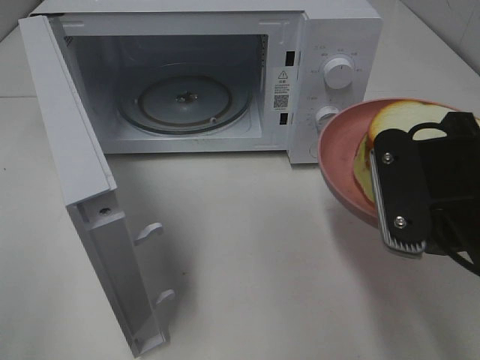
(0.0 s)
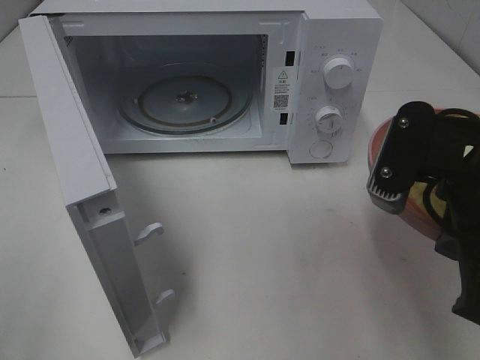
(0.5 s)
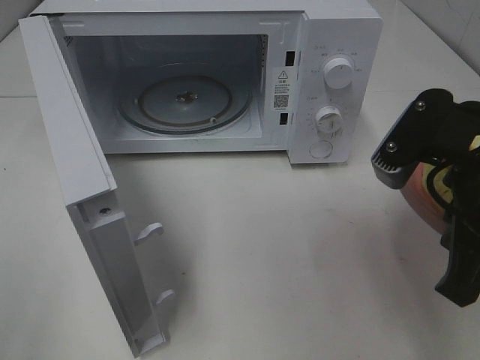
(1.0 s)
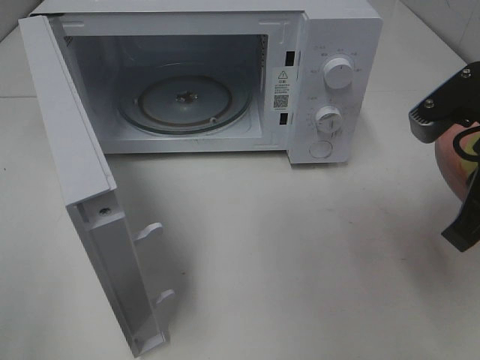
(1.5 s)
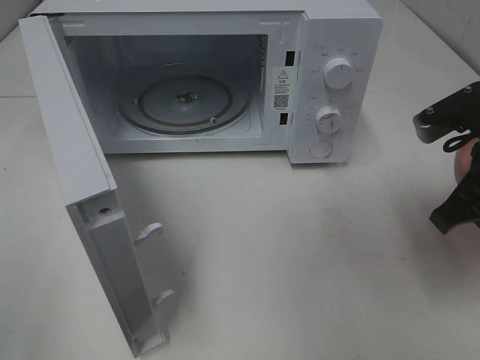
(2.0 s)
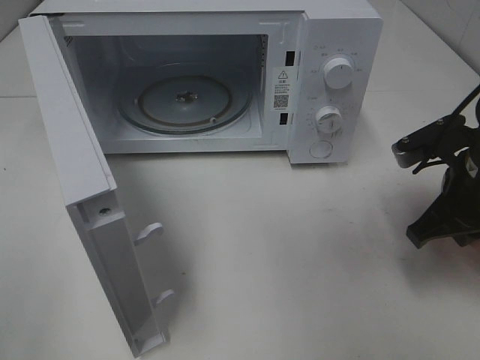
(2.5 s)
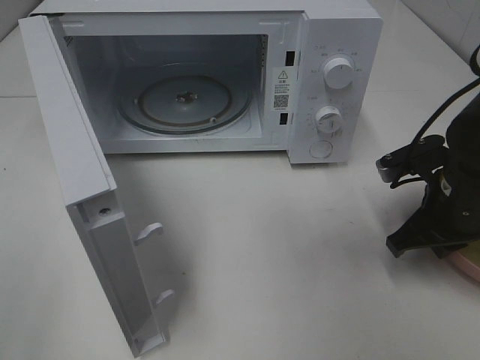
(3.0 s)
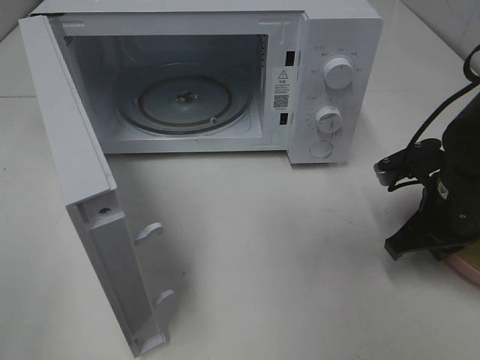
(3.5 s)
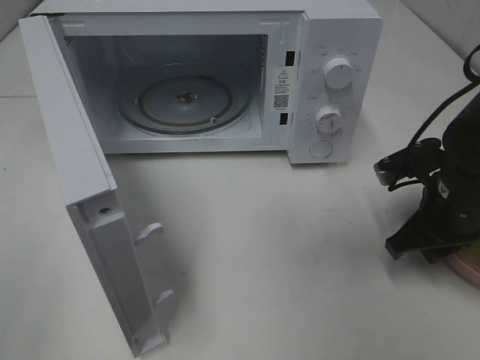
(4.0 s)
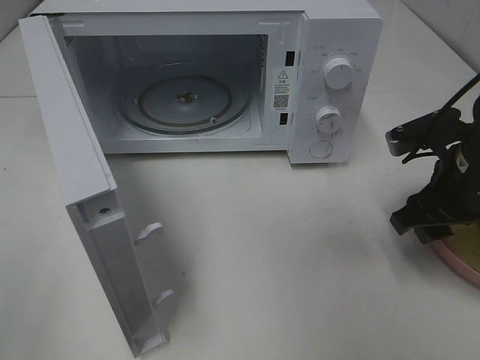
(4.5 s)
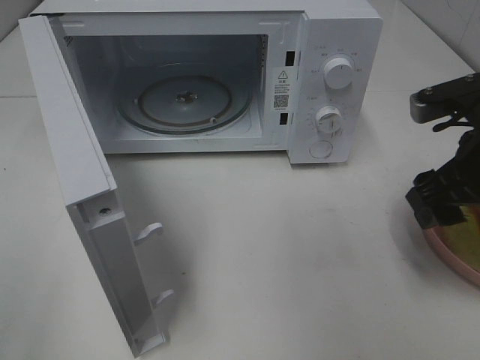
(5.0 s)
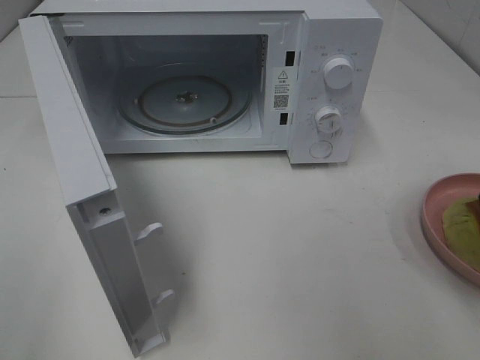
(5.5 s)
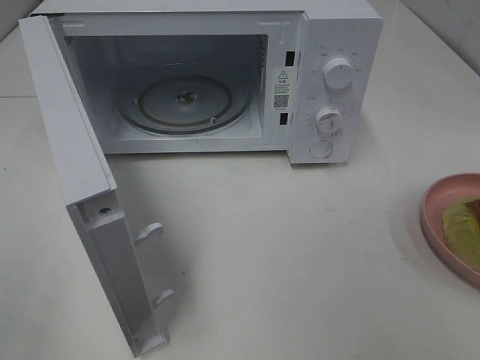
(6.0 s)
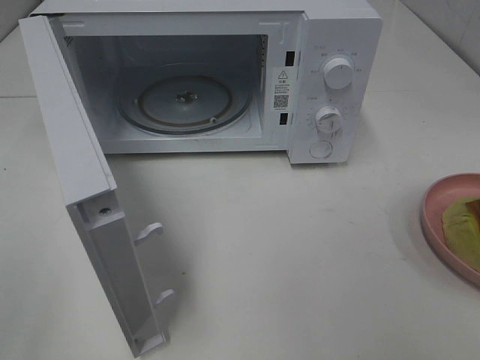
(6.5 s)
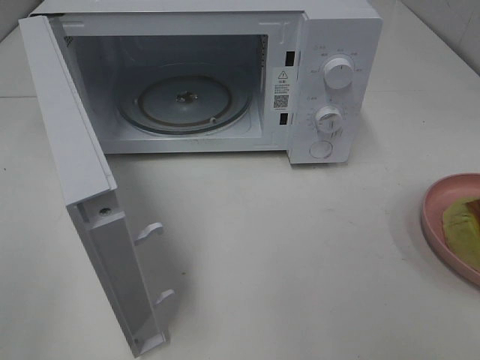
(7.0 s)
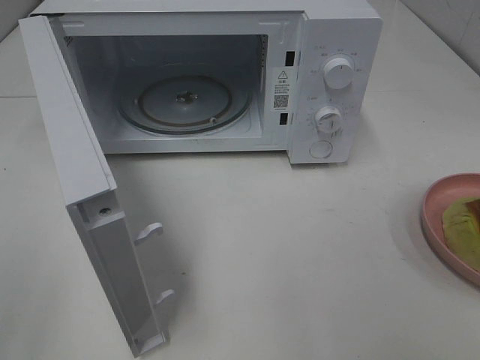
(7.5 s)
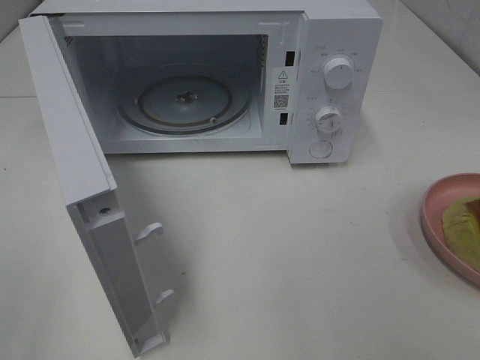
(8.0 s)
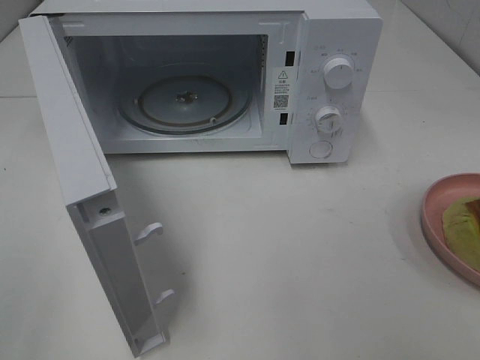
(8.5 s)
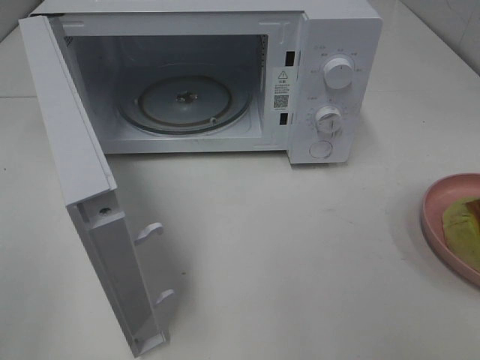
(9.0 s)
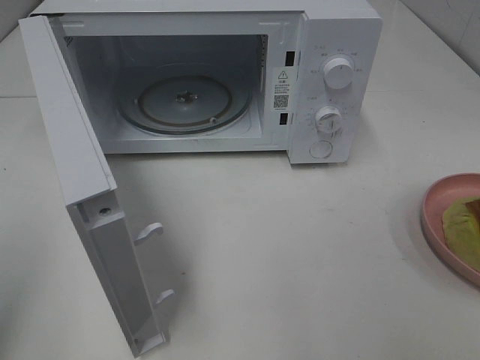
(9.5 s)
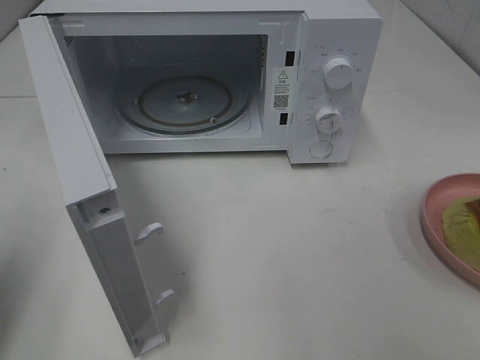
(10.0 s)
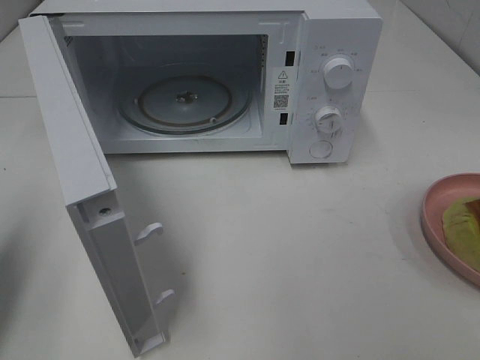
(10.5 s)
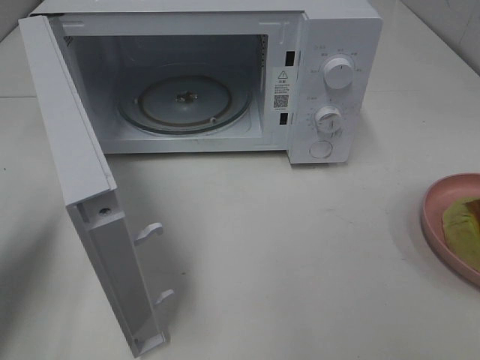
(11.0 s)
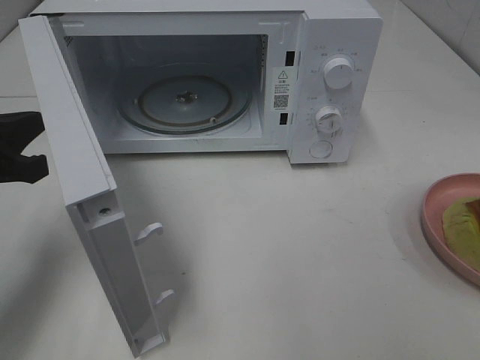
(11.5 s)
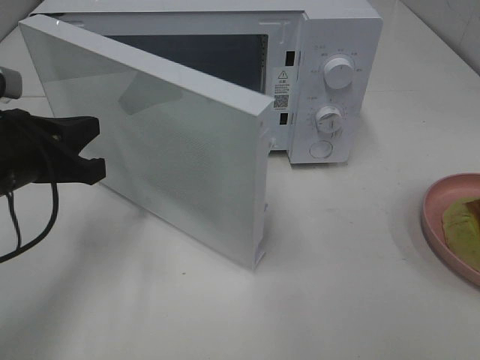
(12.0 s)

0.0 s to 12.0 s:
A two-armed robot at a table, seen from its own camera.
Task of the whole recording: Heat Sandwich.
Step, 0.0 to 4.5 s: Right hand: place the plate on the table.
0.0 to 2.0 s: The right gripper goes roughly 10 cm forward and to the right.
2.0 to 4.0 s: The right gripper is displaced downward by some 10 cm, and opens up.
4.0 to 6.0 s: The right gripper travels upward and backward by roughly 25 cm, and opens its fingers.
8.0 to 10.0 s: The left gripper heads forward, covering about 15 cm, and closes up.
10.0 to 12.0 s: The left gripper goes approximately 20 cm forward, to the right and downward.

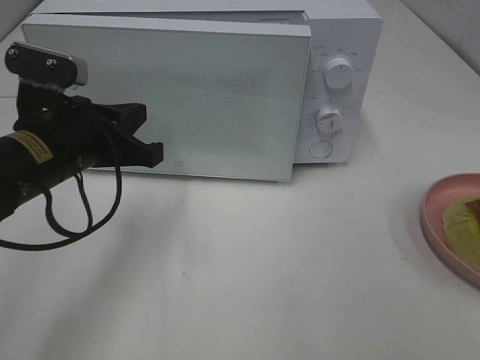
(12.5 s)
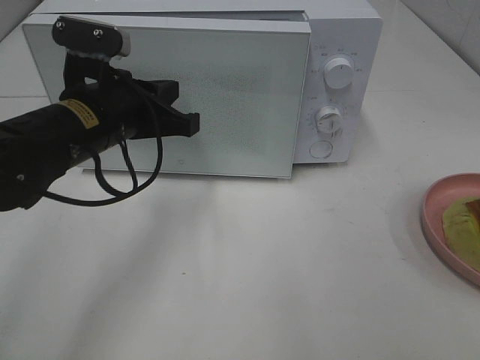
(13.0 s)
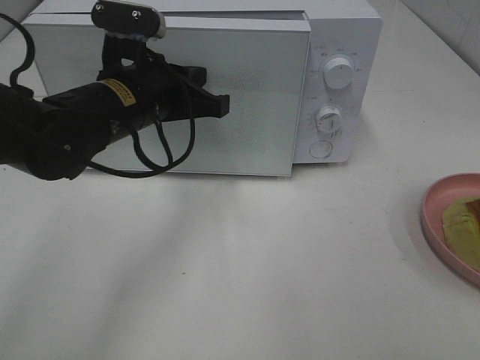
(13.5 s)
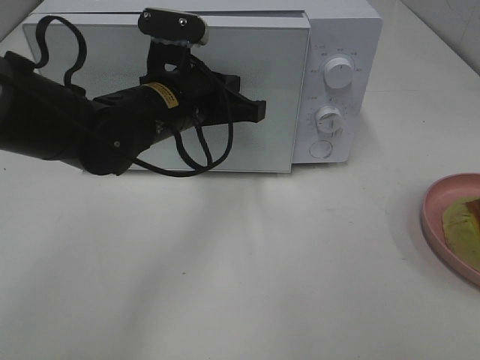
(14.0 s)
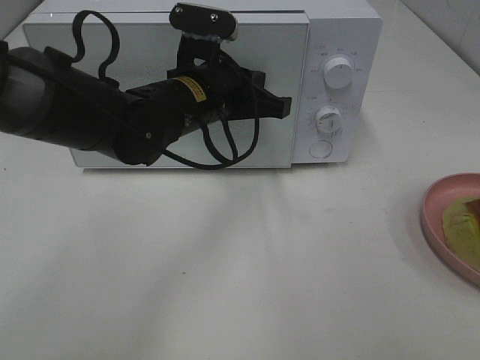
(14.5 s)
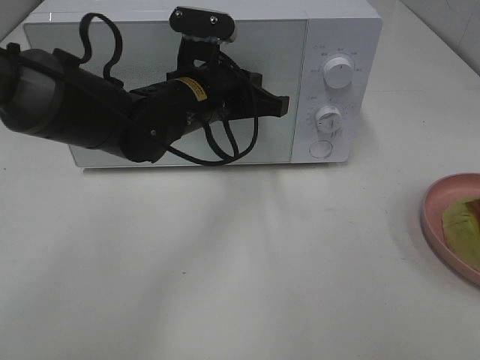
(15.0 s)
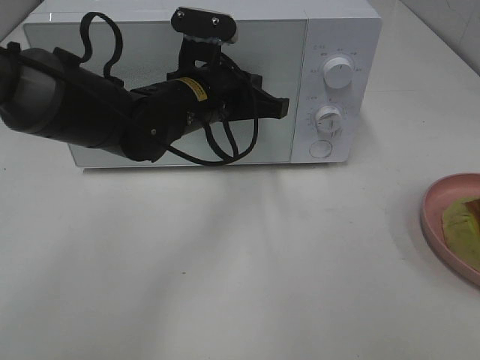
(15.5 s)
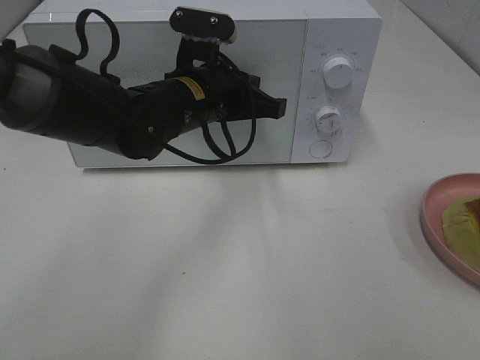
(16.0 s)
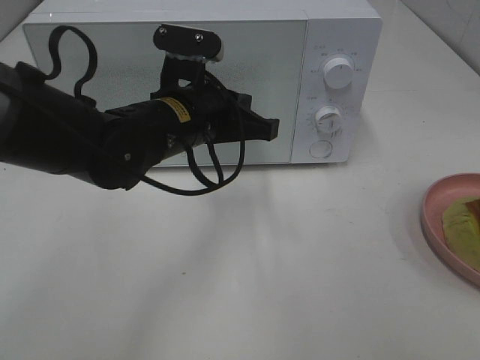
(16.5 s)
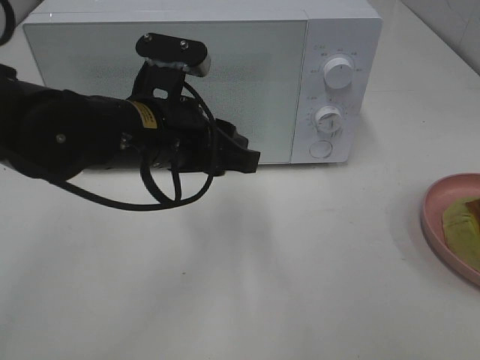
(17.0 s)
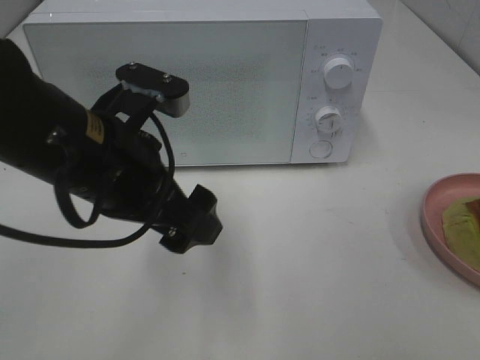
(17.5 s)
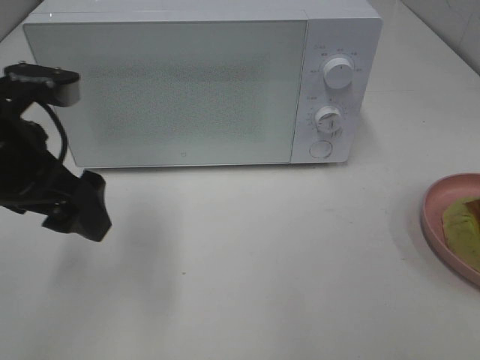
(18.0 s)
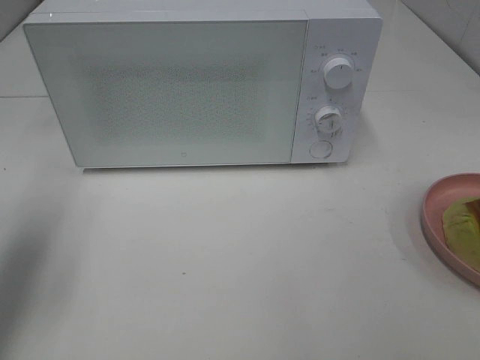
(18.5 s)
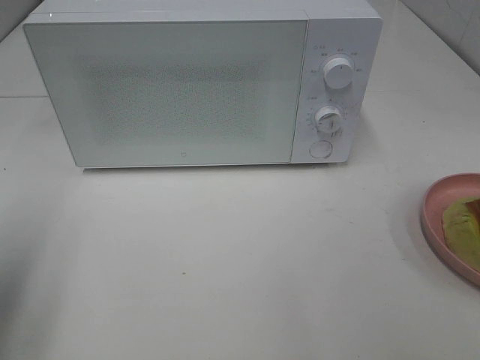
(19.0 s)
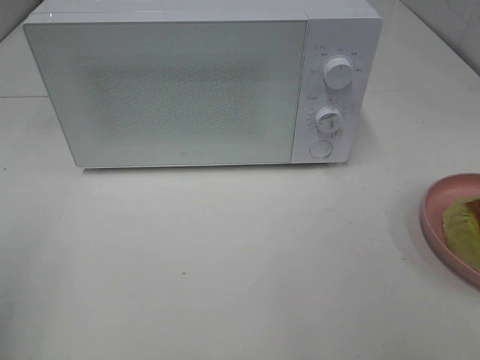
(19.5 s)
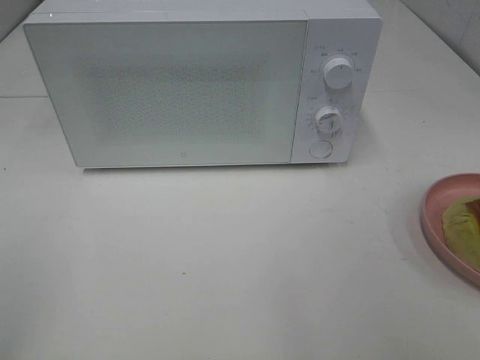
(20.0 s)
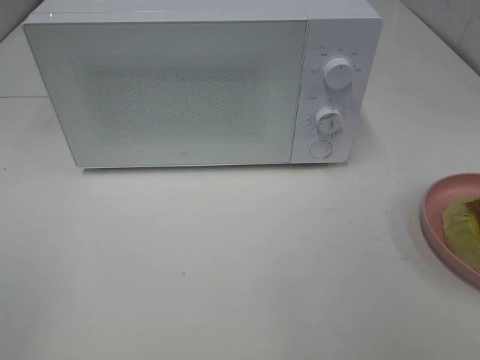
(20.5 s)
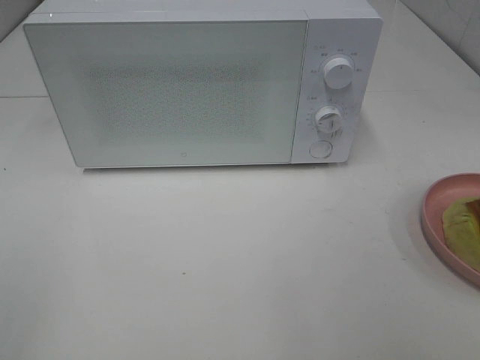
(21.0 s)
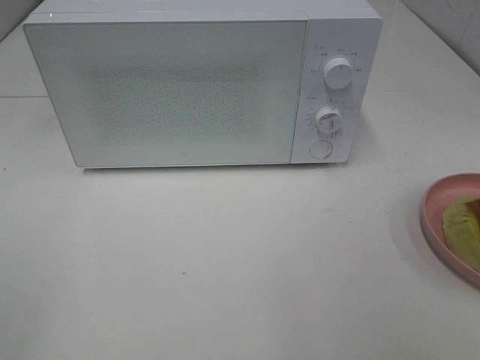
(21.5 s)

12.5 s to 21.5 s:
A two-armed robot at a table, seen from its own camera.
Task of the whole recording: Heat Sandwich.
Step, 12.5 to 16.5 s: Left hand: close the microwave door.
12.5 to 14.5 s: The left gripper is displaced to the right and forward by roughly 15 cm.
14.5 to 17.0 s: The left gripper moves backward, about 10 cm, and opens up.
17.0 to 19.5 s: The left gripper goes approximately 30 cm to the left and backward, and opens.

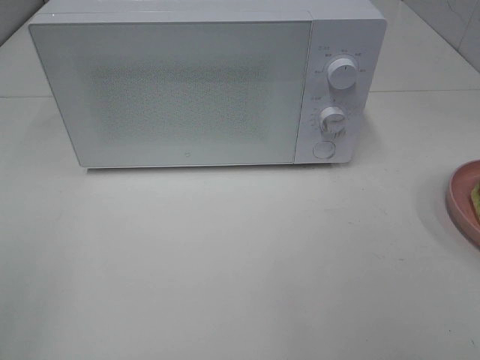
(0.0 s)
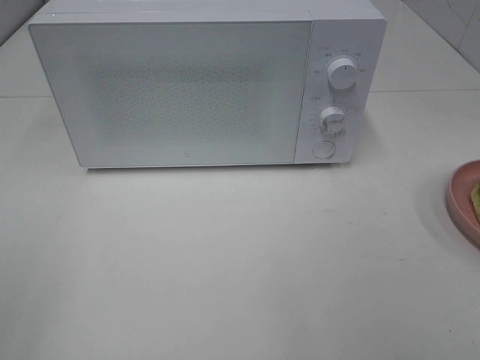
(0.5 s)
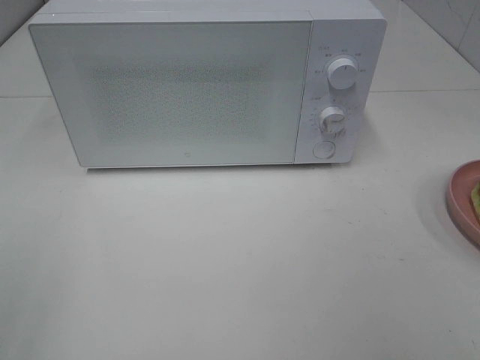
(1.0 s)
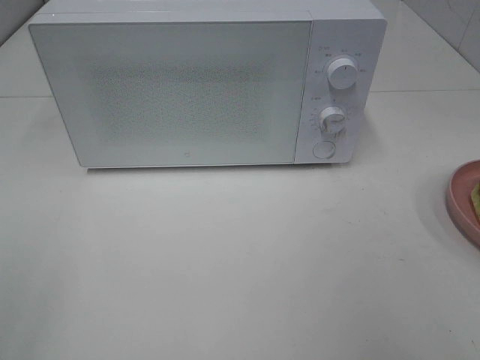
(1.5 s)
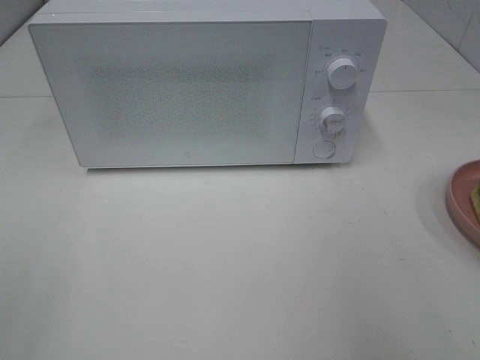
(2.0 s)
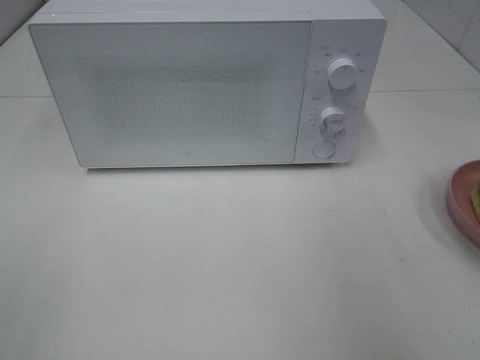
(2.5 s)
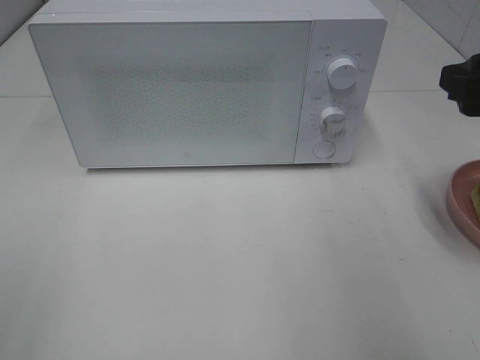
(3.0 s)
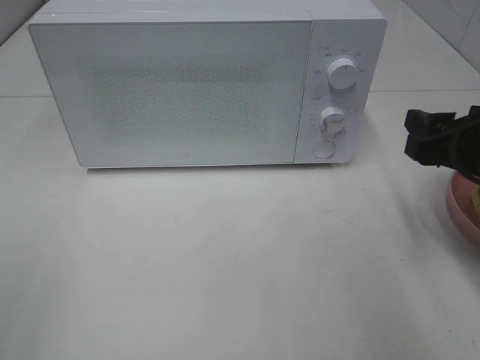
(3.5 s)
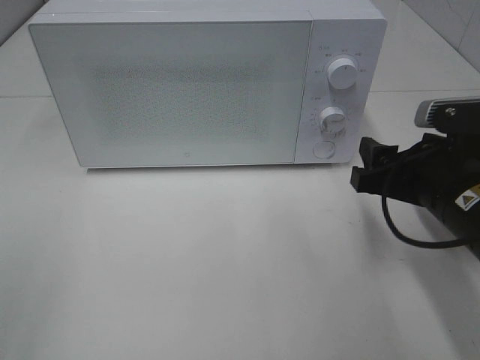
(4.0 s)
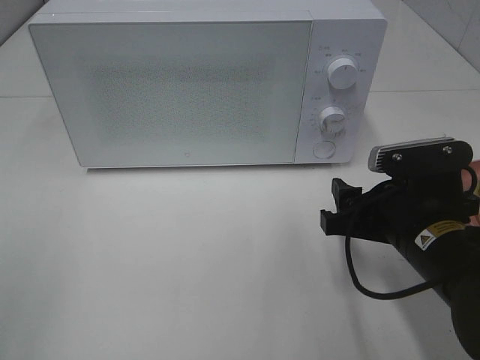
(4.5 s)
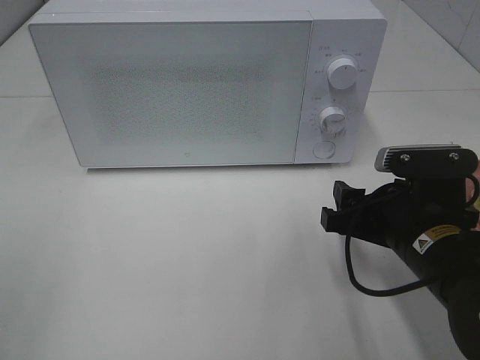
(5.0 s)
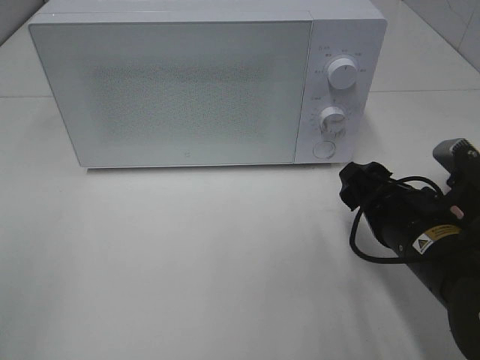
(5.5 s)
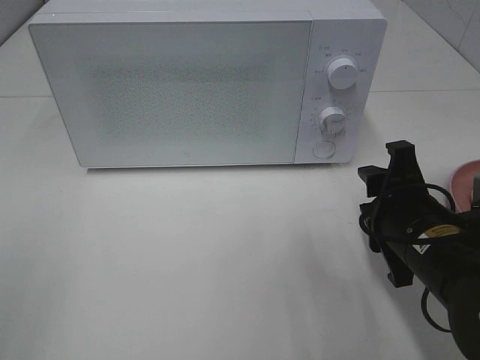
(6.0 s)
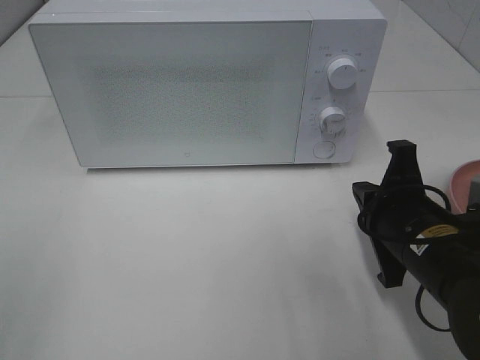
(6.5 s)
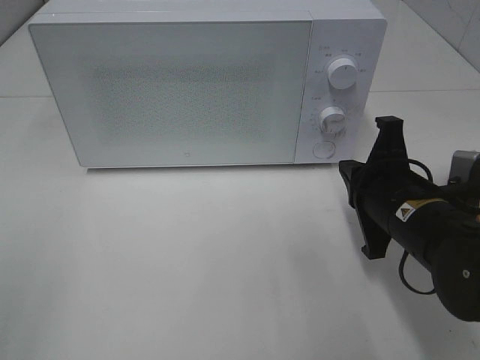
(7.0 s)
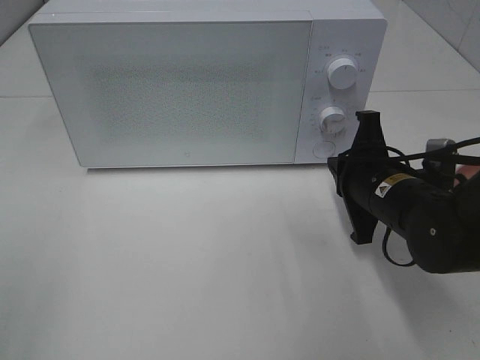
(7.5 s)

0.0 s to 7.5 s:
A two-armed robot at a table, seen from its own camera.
Task of the whole recording: Heat Sandwich.
2.0 to 4.0 s: The right gripper goes about 20 cm downward, forward and to the left.
5.5 to 7.5 s: The right gripper goes some 5 cm forward, and closes.
